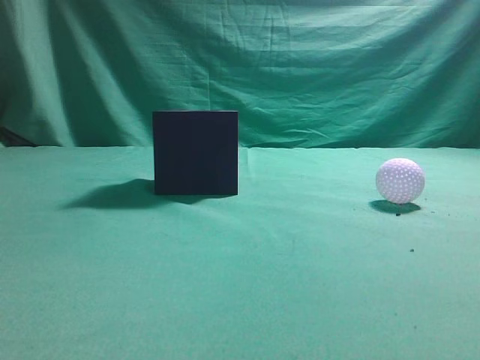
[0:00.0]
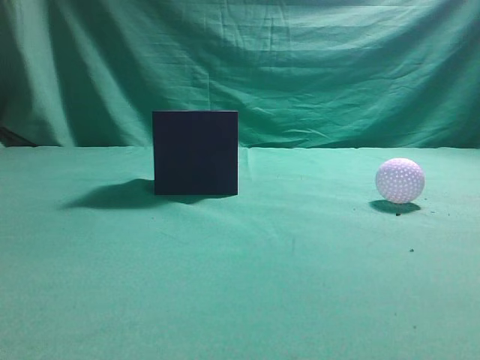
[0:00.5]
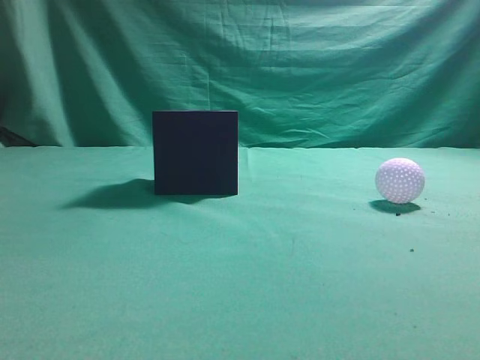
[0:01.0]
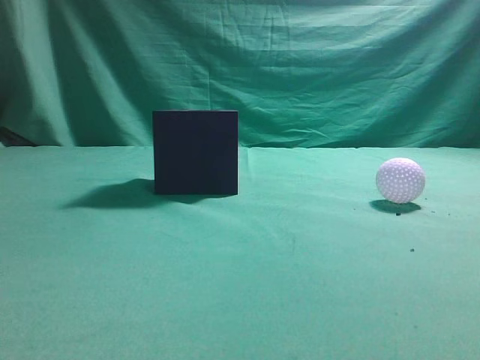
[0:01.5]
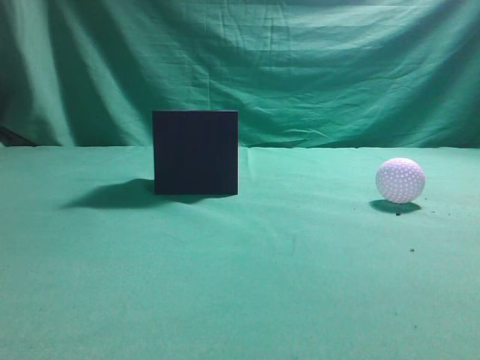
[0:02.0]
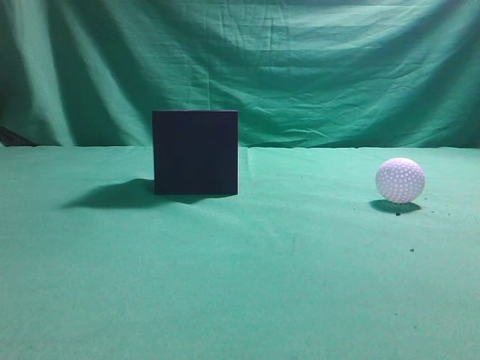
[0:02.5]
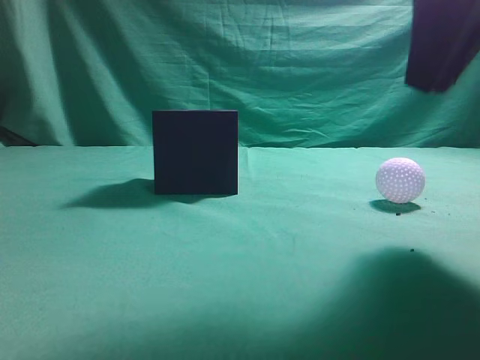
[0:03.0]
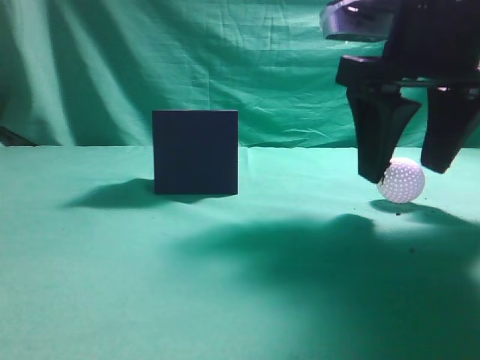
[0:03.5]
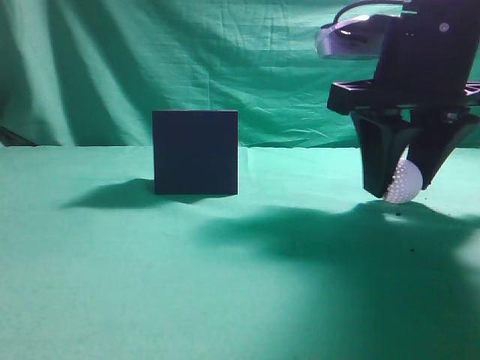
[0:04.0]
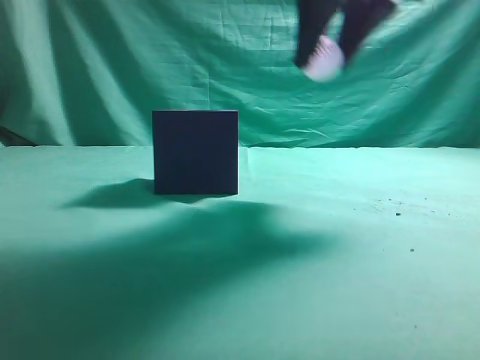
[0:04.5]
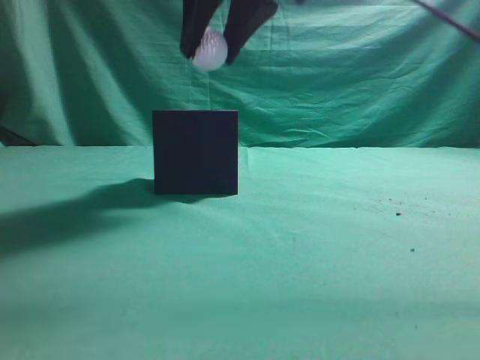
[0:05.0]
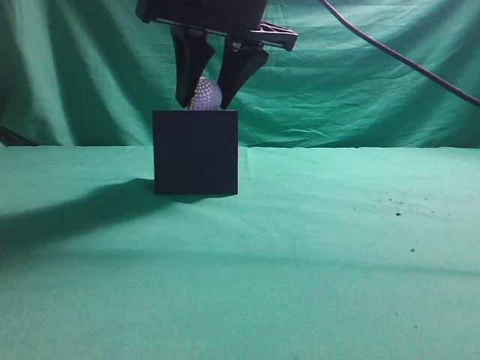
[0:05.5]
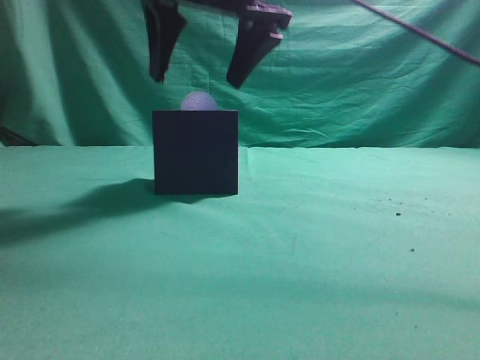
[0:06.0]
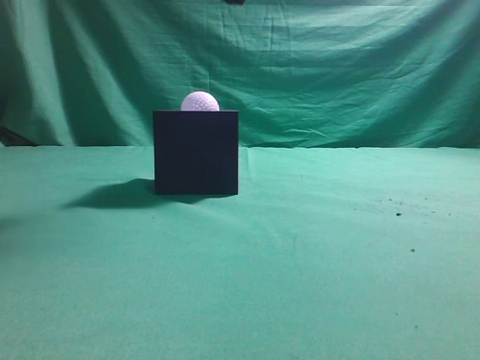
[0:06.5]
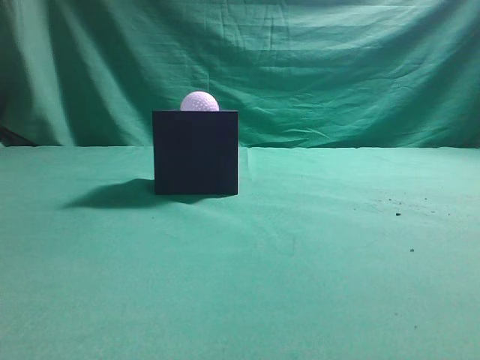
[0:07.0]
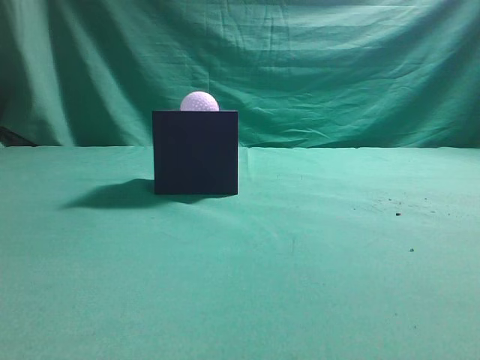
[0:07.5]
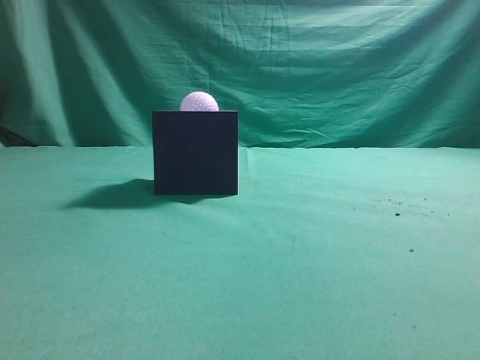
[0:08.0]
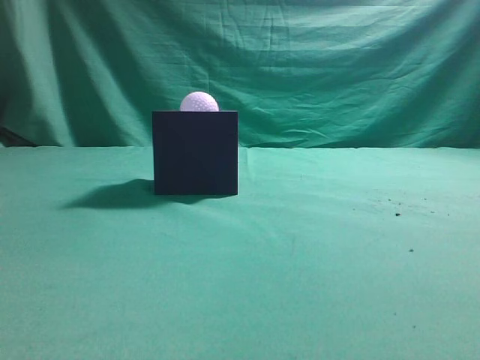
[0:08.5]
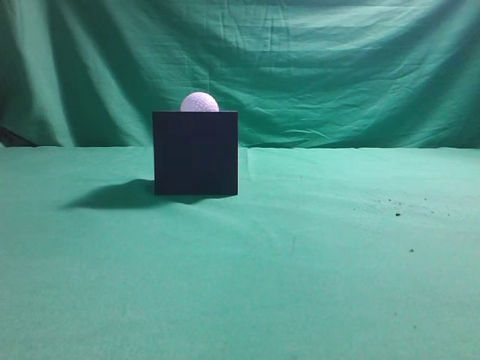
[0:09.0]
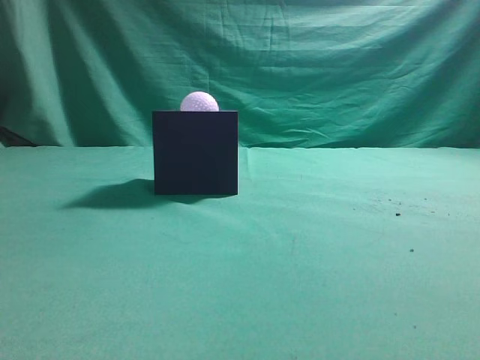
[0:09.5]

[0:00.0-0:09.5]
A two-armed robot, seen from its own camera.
Task of the whole recording: Pick up the ball and place it in the circular groove above the cube.
Step, 0:00.0 to 0:04.0: Grasp the sphere on the table.
Step, 0:04.5 to 0:06.0: Place the sphere into the sphere-shaped recess.
0:02.0 to 0:04.0: The right gripper travels forward, to the left and downward by about 25 cm, and opens.
0:04.0 to 0:05.5: The right gripper heads to the left and upward, covering some 15 cm.
0:05.5 to 0:07.5: The right gripper shifts about 35 cm backward, to the right and upward, and closes.
